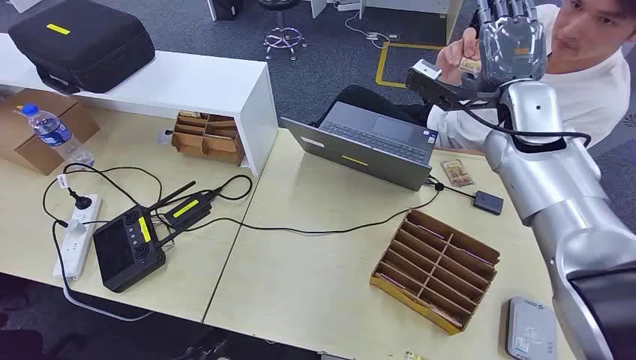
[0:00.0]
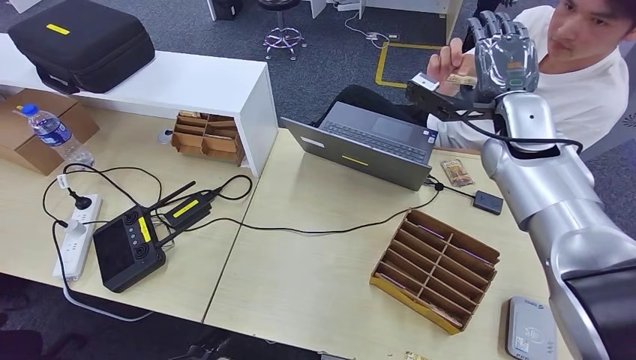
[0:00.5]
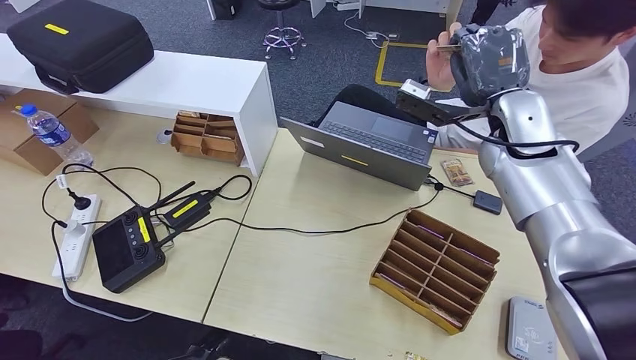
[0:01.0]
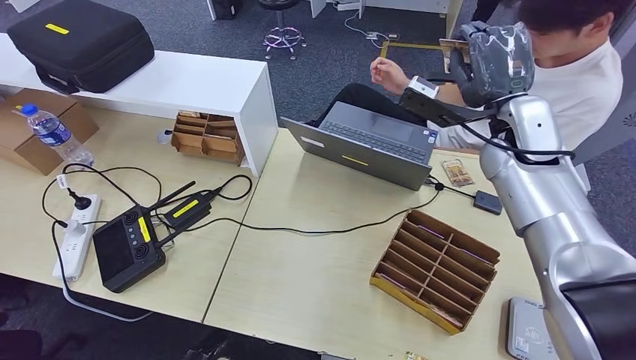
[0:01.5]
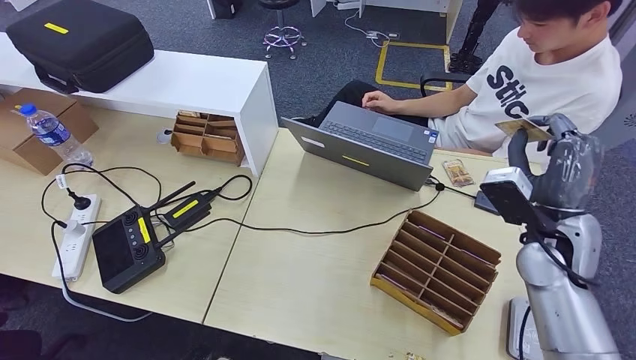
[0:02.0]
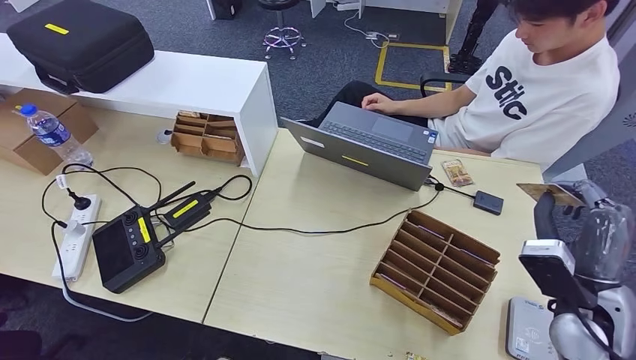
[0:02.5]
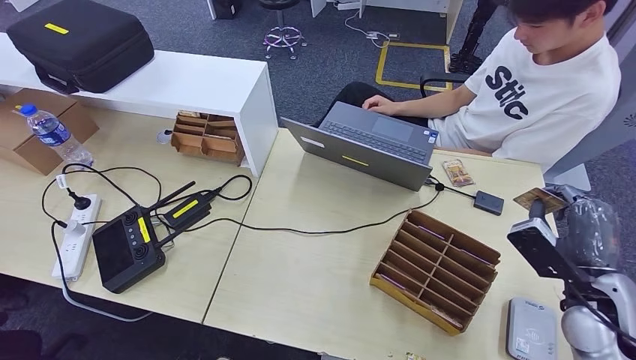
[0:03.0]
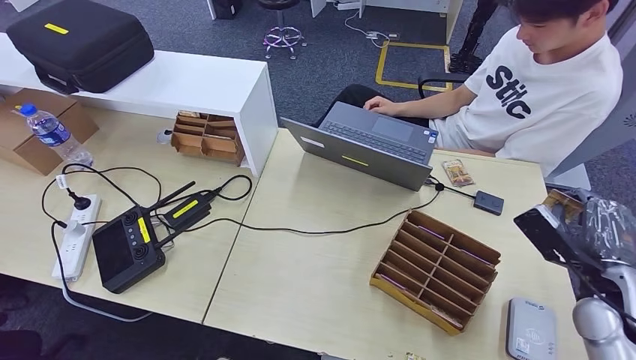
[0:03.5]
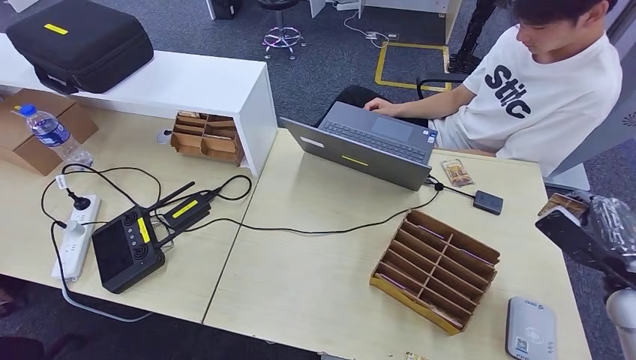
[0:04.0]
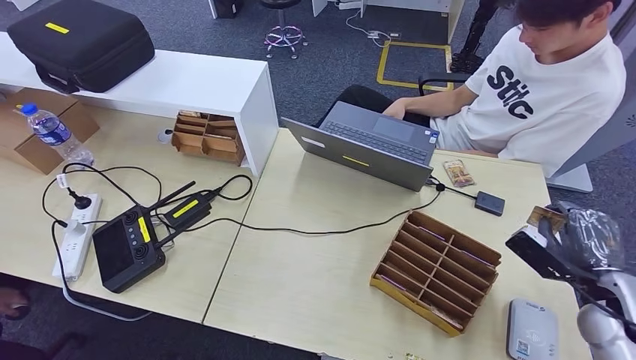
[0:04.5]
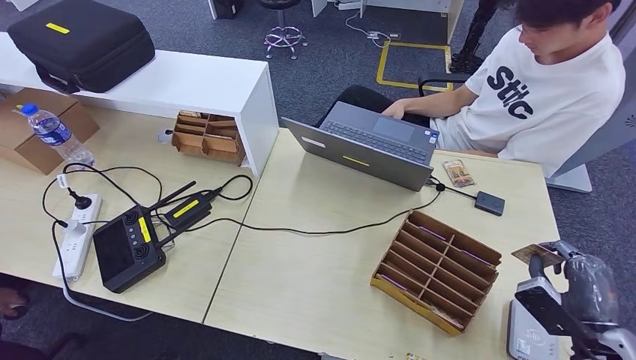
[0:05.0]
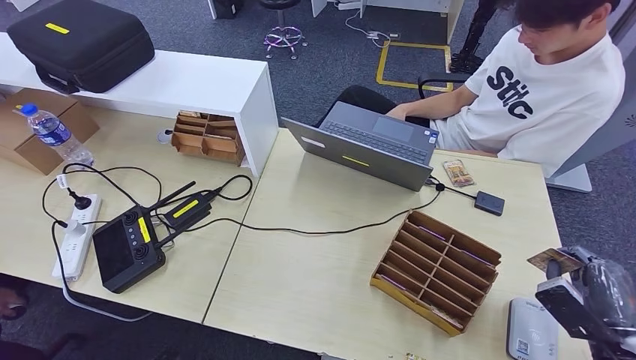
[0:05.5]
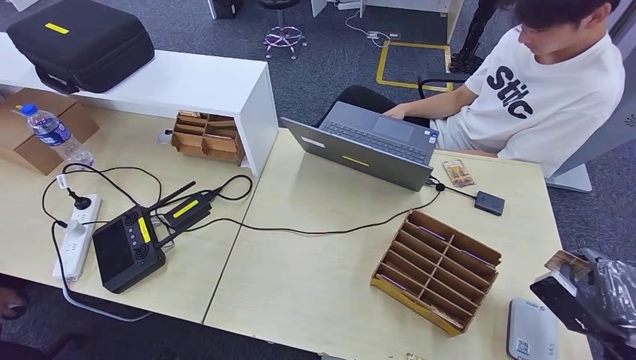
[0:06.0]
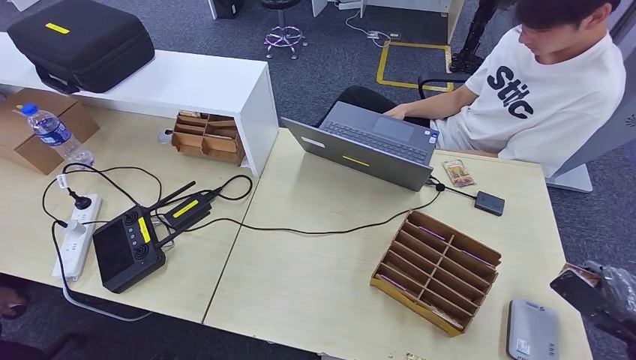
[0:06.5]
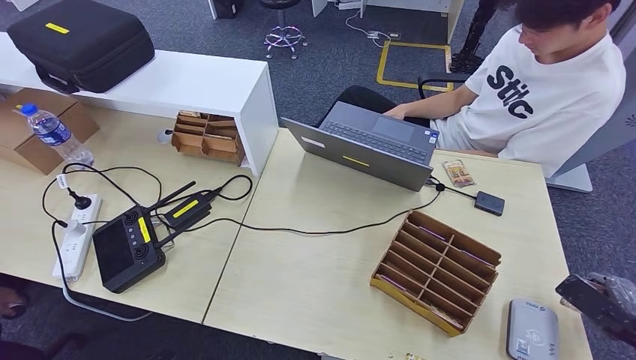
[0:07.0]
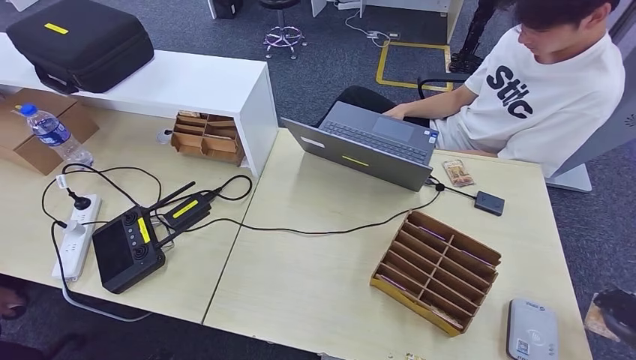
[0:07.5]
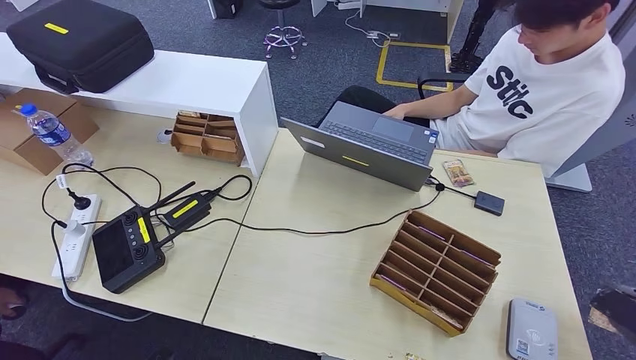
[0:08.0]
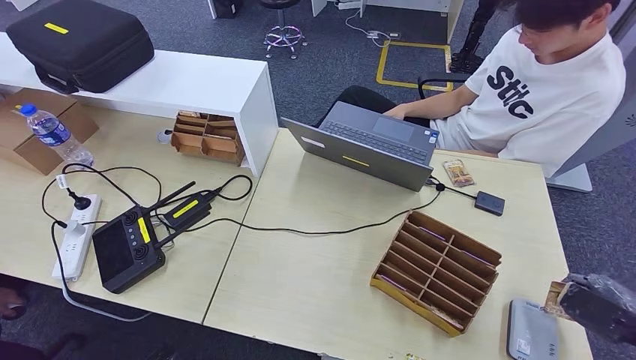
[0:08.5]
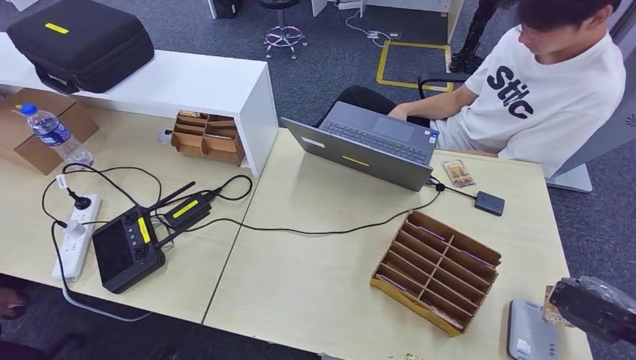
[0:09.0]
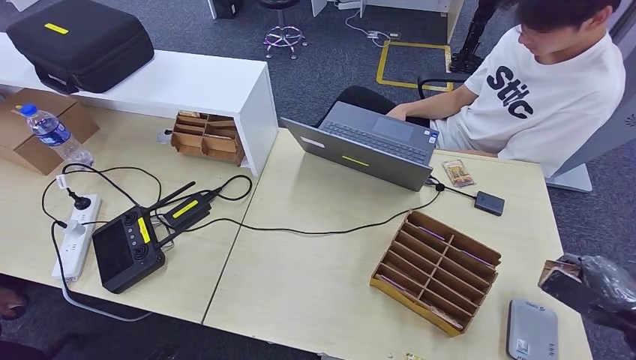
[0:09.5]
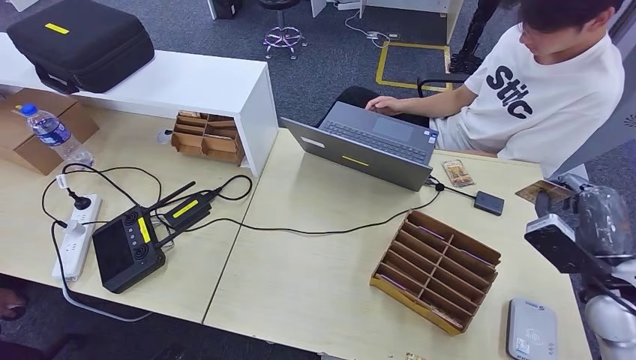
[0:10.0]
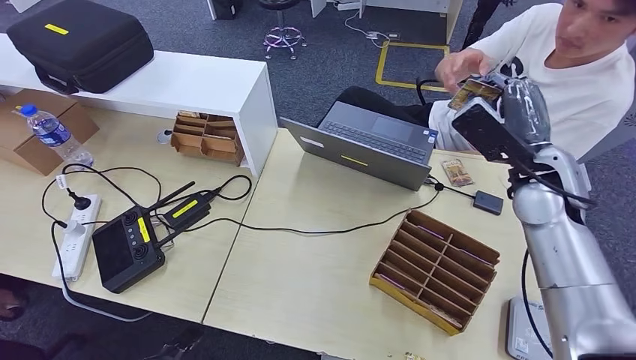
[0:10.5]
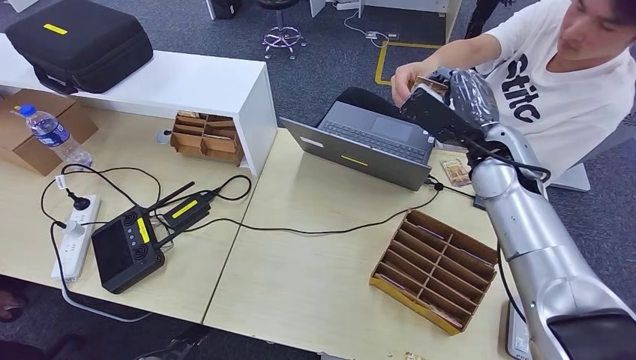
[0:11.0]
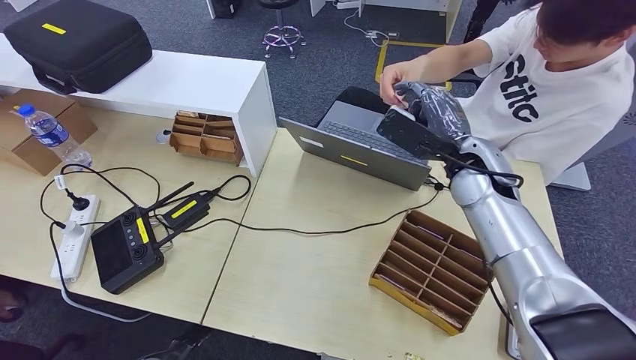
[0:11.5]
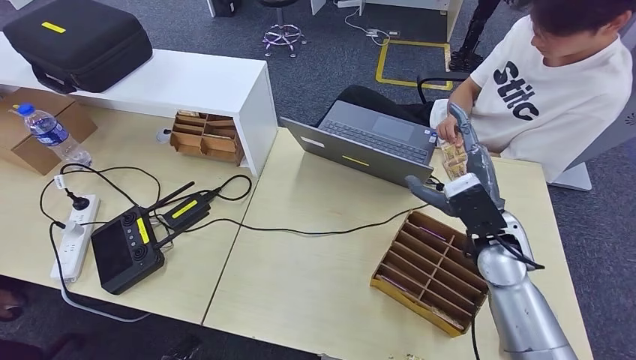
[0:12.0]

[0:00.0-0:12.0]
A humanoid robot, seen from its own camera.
Step, 0:00.0 to 0:02.0: Take the ID card from the person's hand.
Step, 0:02.5 to 0:10.0: Place the ID card on the card reader.
0:02.0 to 0:04.0: The right hand shifts about 15 cm to the right.
0:04.0 to 0:06.0: The right hand travels backward and downward by some 10 cm.
0:06.0 to 0:08.0: The right hand heads to the right, covering roughly 10 cm.
0:08.0 to 0:10.0: The right hand travels to the left and forward by approximately 20 cm.
0:10.0 to 0:12.0: The right hand heads to the left, covering approximately 20 cm.

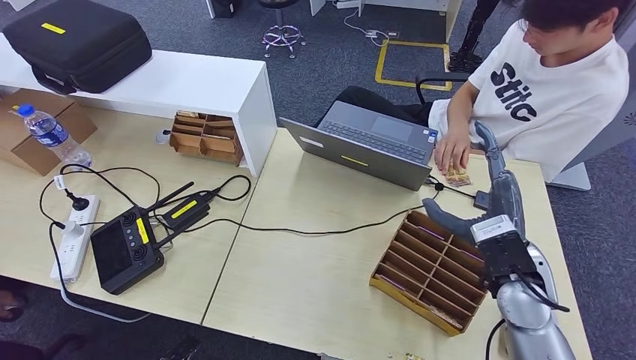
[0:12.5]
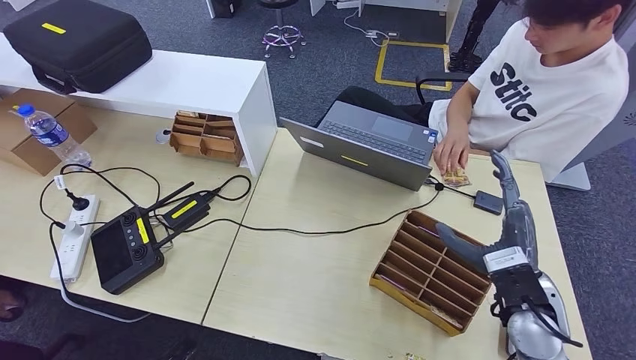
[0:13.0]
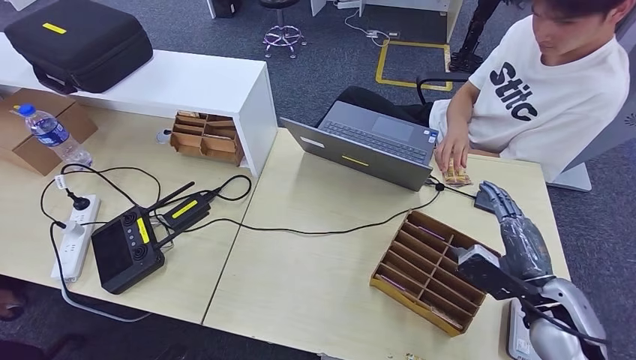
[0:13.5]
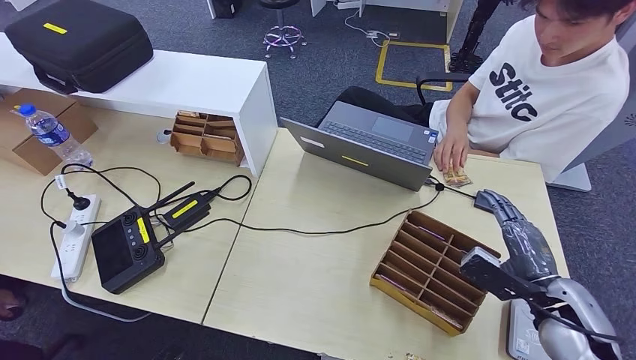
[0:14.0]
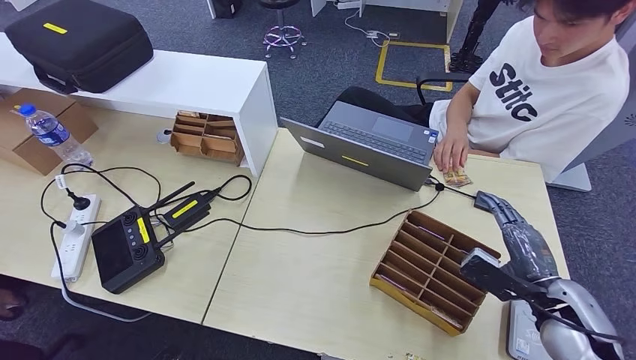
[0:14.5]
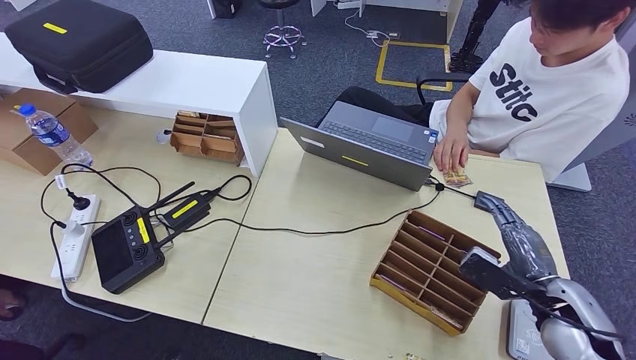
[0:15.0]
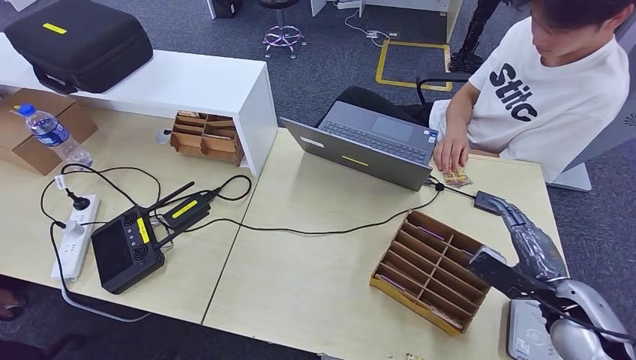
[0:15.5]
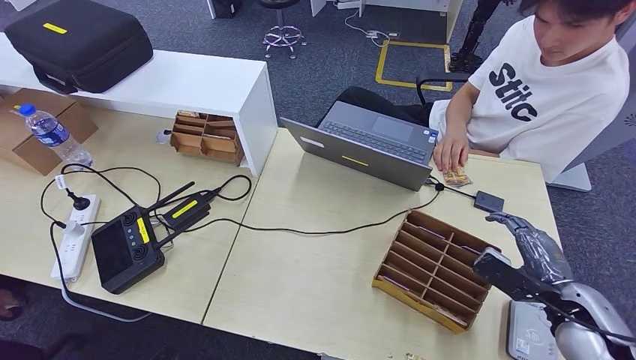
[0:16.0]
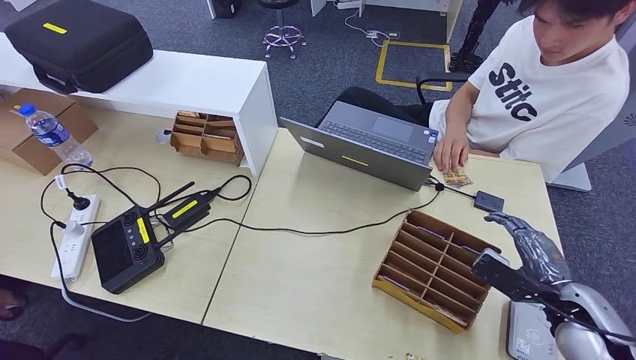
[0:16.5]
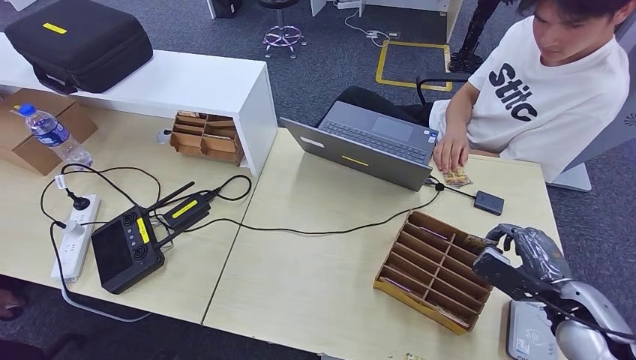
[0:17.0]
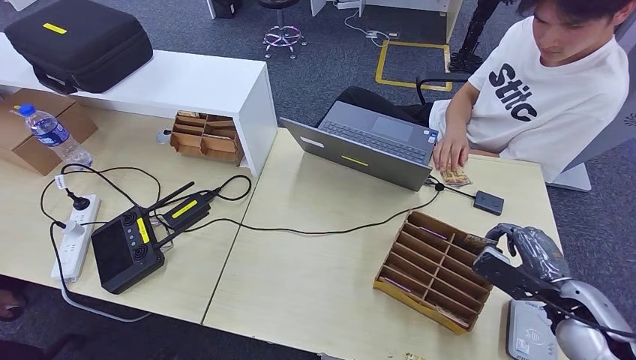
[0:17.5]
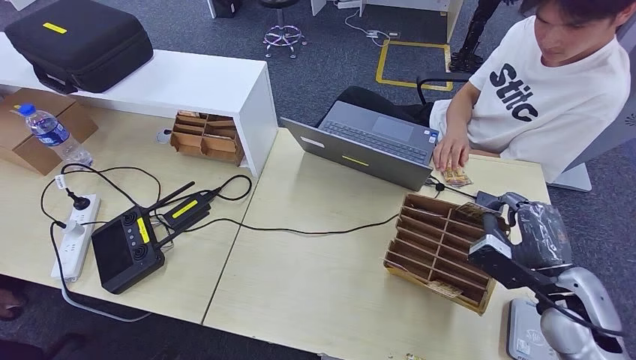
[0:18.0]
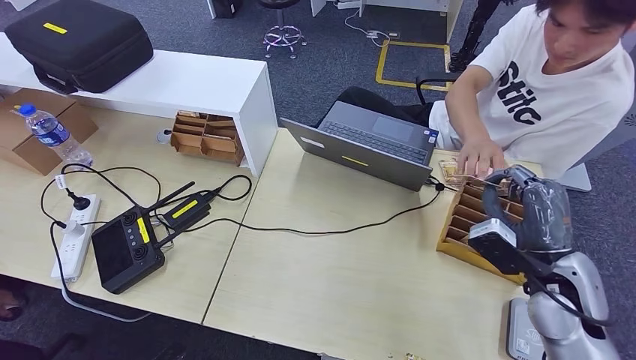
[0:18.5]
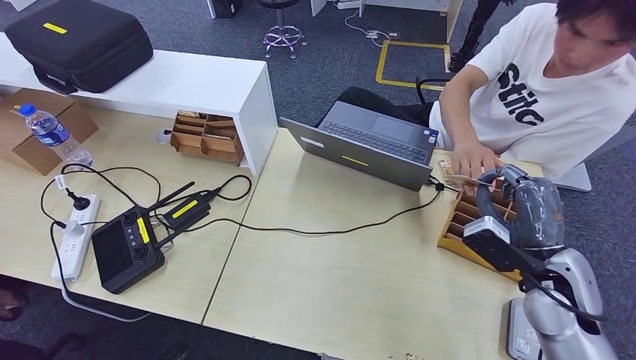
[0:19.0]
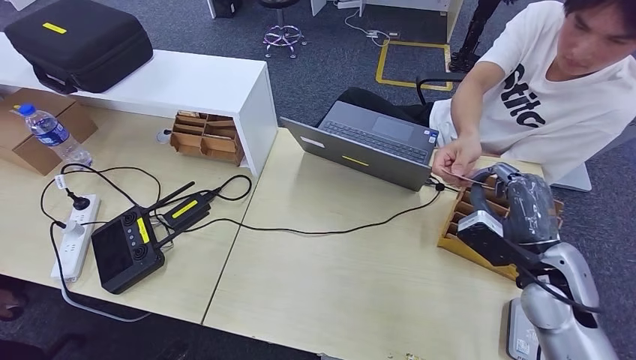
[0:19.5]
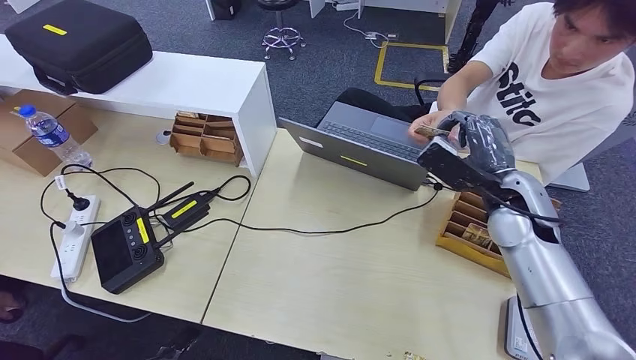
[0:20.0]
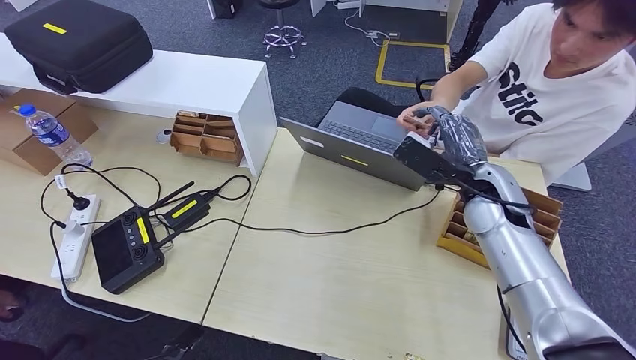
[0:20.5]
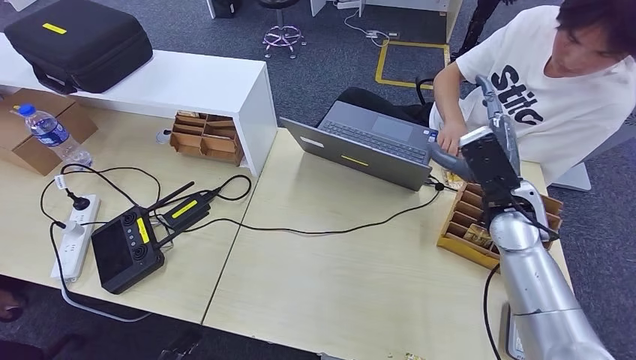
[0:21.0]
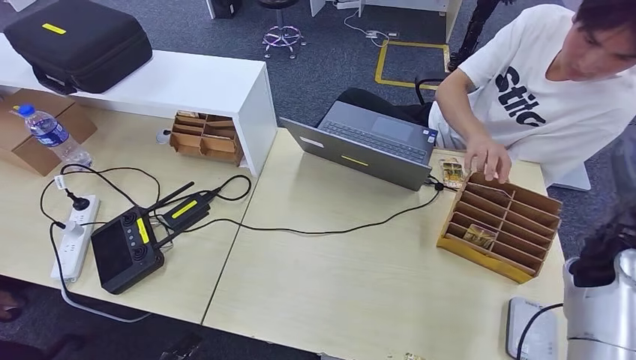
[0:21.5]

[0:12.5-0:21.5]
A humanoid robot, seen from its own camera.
Step, 0:12.5 to 0:14.5: Hand the ID card to the person.
Step, 0:15.0 to 0:19.5: Pick up the room key from the key card box.
0:12.5 to 0:14.5: The right hand goes approximately 15 cm to the right and downward.
0:14.5 to 0:17.0: The hands stay close to where they were, moving slightly.
0:17.0 to 0:19.5: The right hand is displaced to the left and upward by about 10 cm.
0:19.5 to 0:21.5: The right hand goes roughly 10 cm to the right and forward.
